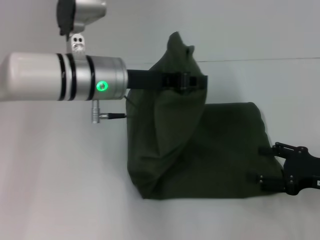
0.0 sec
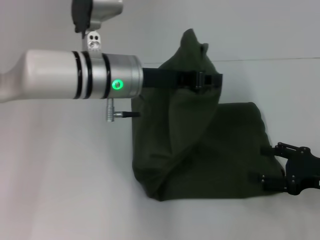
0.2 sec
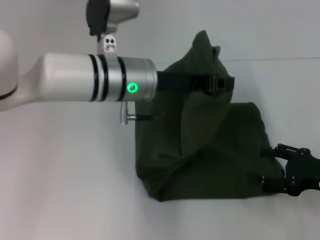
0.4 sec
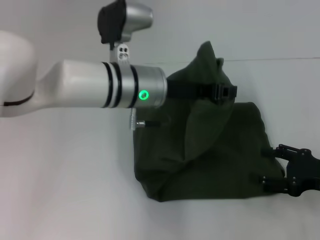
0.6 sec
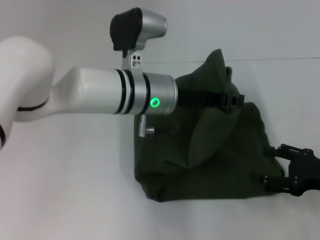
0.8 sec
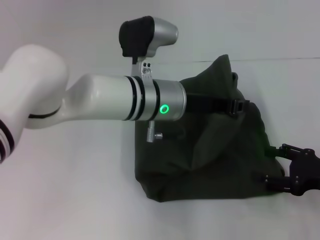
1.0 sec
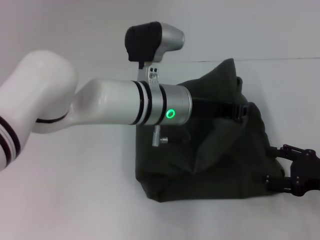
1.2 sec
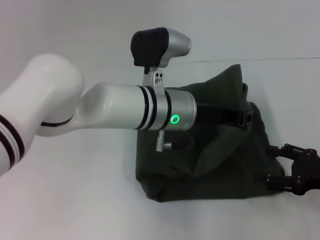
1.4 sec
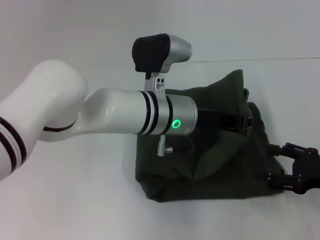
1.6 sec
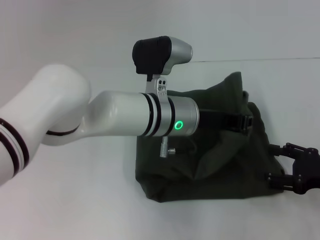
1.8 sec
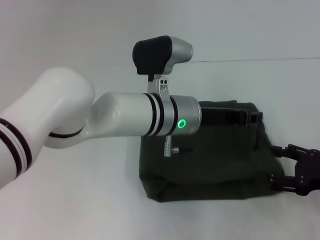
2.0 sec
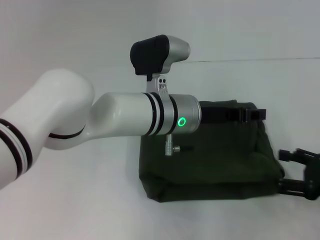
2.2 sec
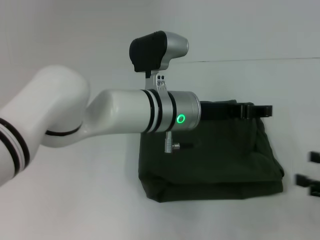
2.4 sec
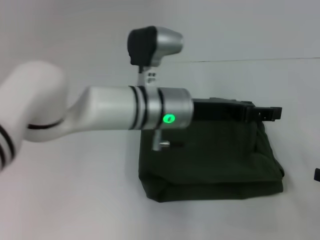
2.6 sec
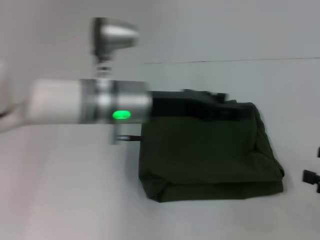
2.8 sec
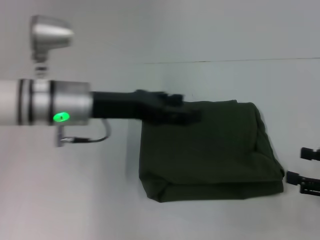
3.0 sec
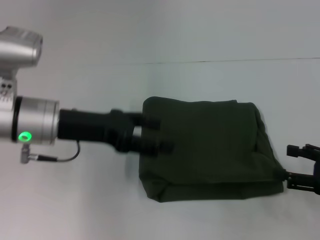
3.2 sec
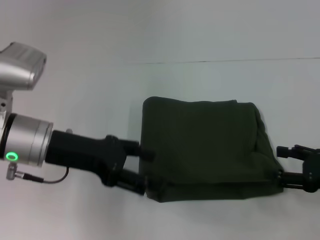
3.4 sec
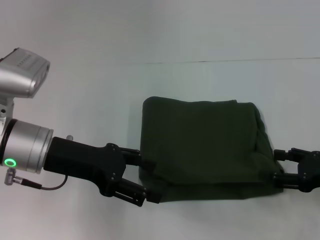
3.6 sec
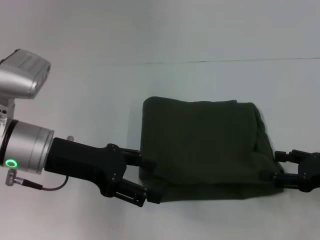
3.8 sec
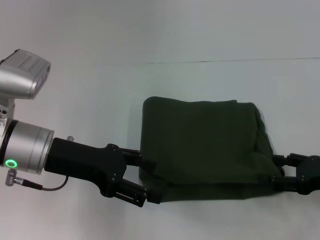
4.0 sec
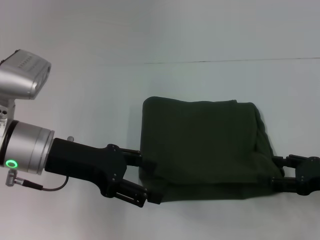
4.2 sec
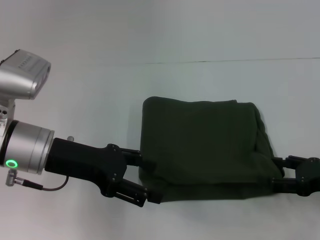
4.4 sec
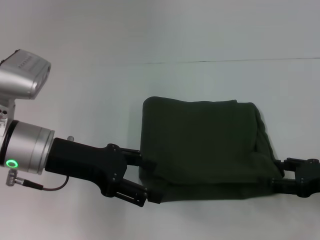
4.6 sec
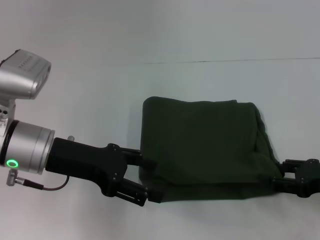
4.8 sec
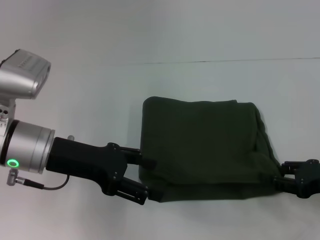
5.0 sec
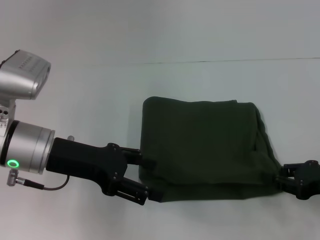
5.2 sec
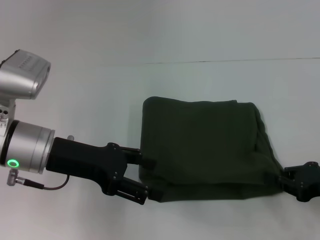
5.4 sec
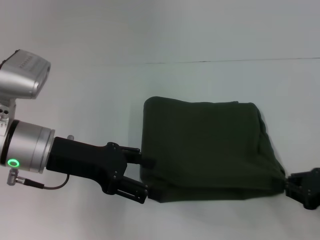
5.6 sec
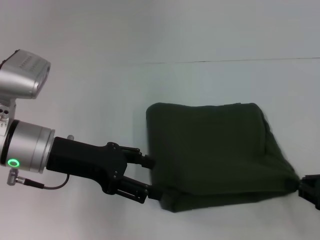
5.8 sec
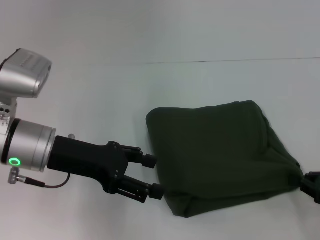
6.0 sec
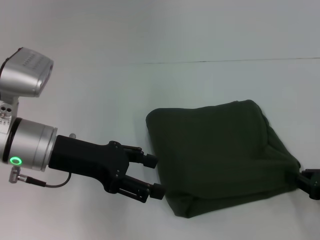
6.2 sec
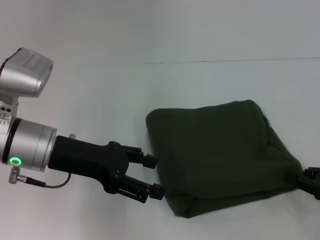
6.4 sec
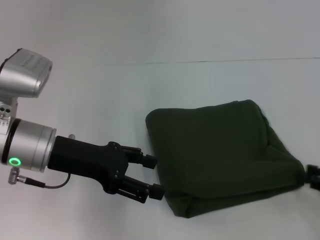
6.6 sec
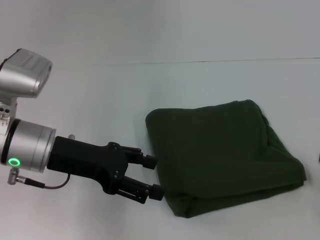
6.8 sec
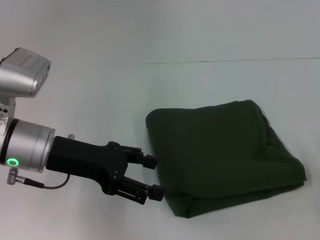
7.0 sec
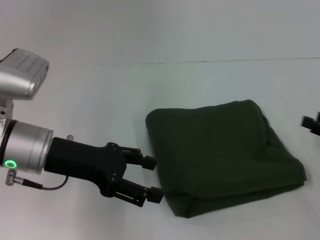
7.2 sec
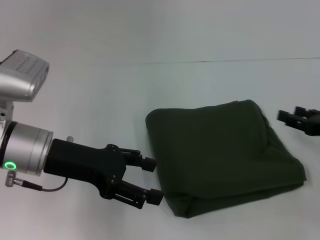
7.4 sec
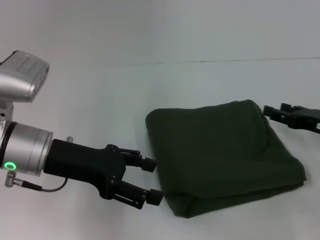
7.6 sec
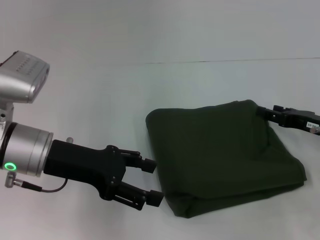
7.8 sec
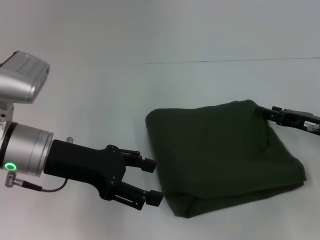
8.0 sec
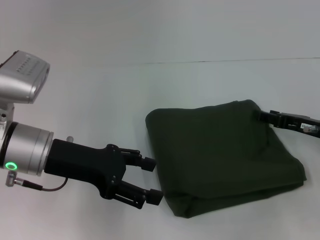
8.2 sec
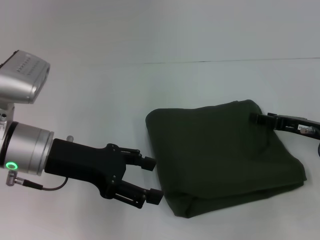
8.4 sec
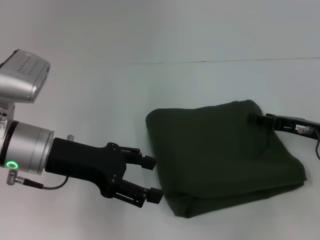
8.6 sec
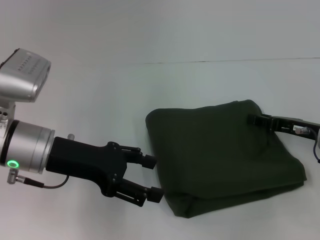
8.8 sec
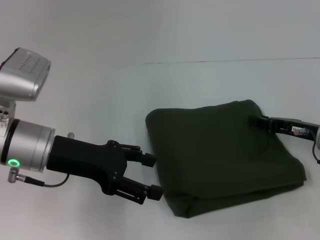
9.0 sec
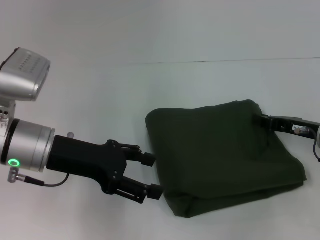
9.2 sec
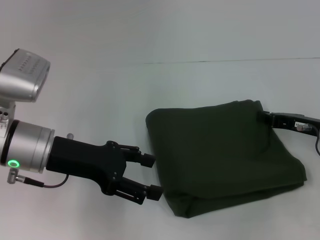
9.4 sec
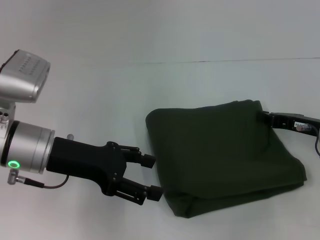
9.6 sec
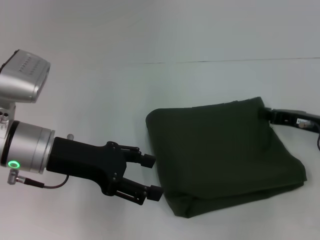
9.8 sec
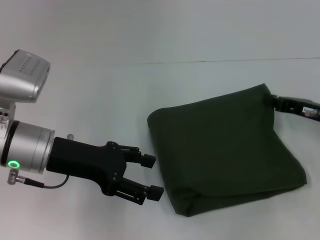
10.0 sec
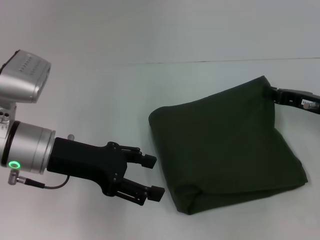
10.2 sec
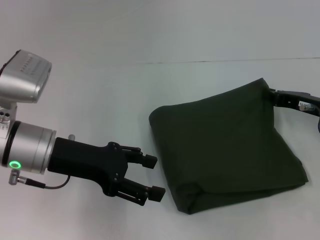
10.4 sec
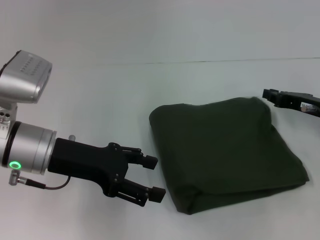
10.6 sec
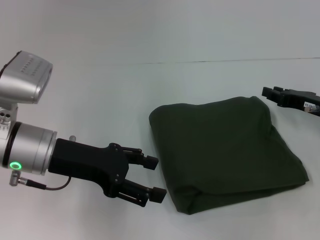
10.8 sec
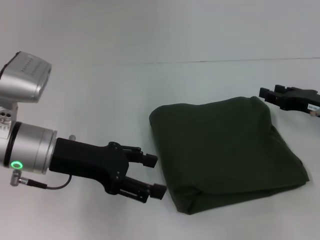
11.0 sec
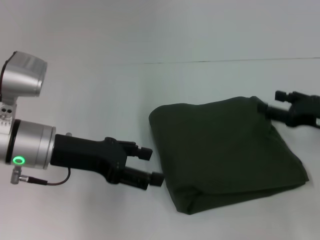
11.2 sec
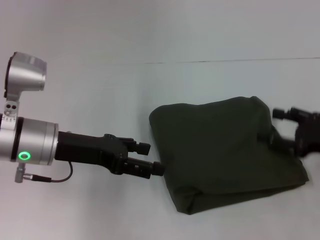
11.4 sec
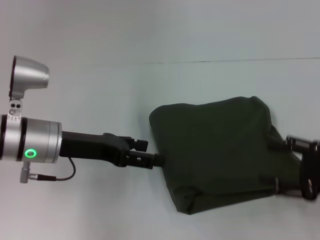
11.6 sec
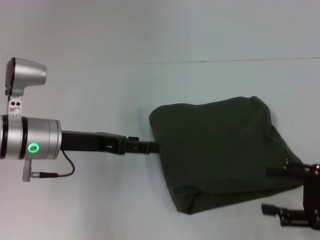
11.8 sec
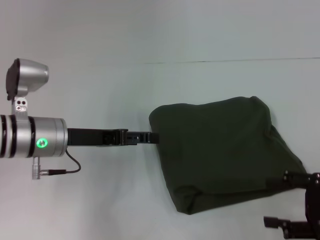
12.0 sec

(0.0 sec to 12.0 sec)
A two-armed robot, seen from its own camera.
Step, 0.0 sec - 2.0 sec: Fold the clothes with your left hand.
0.0 sec - 1.6 sec: The left gripper moves to the right, approximately 10 cm.
1.6 sec - 3.0 sec: The left gripper travels to the left by about 15 cm, and opens up.
3.0 sec - 4.4 sec: The left gripper moves approximately 5 cm.
4.4 sec - 6.0 sec: The right gripper closes its fingers.
6.0 sec - 7.6 sec: The right gripper heads forward, covering some 10 cm, and opens its fingers.
7.6 sec - 9.0 sec: The grippers make only small movements.
9.0 sec - 10.4 sec: The right gripper closes.
10.4 sec - 12.0 sec: The right gripper shifts about 15 cm backward, and opens.

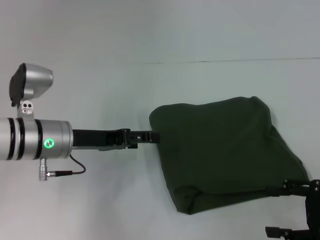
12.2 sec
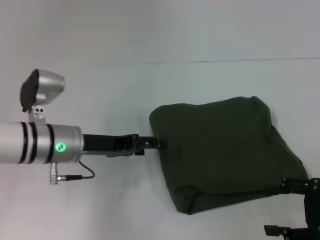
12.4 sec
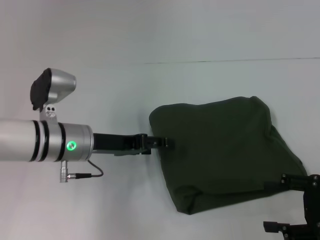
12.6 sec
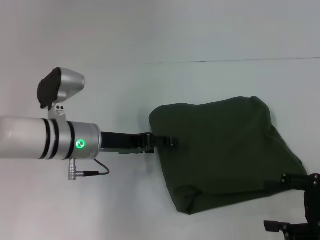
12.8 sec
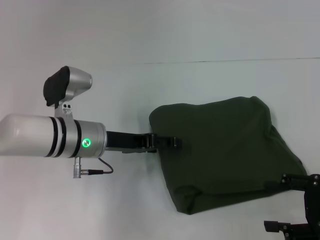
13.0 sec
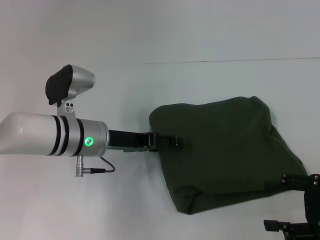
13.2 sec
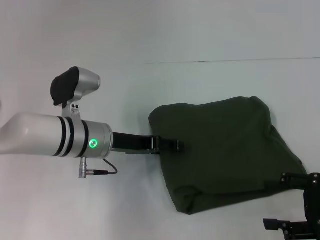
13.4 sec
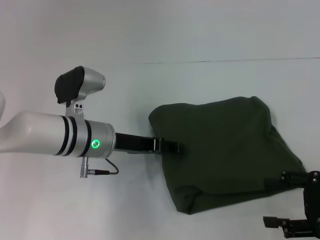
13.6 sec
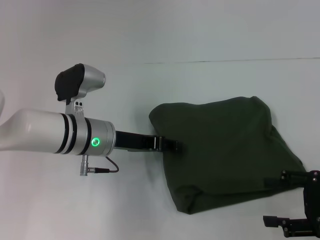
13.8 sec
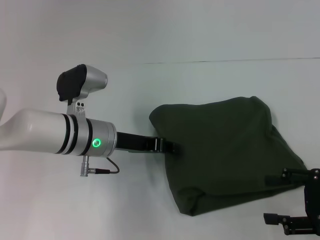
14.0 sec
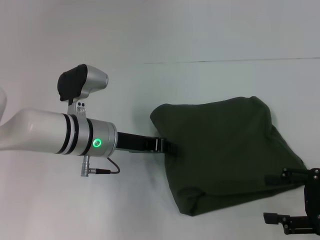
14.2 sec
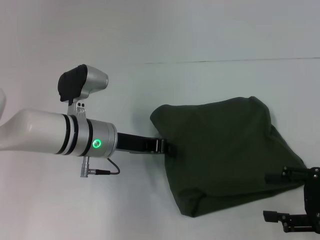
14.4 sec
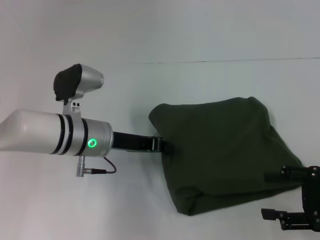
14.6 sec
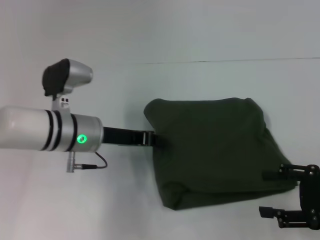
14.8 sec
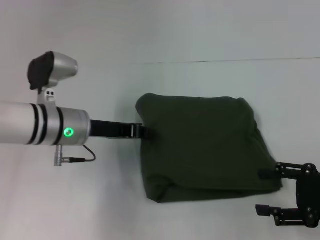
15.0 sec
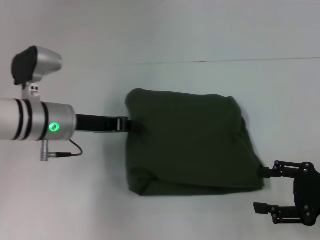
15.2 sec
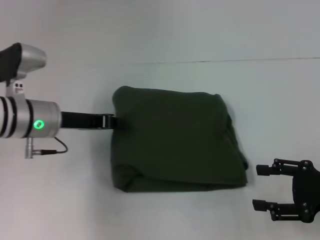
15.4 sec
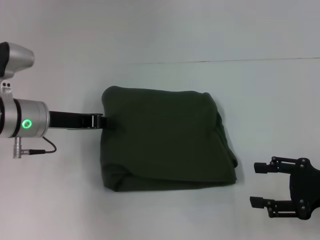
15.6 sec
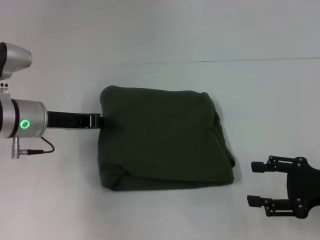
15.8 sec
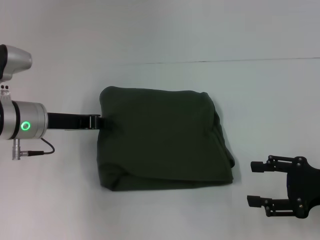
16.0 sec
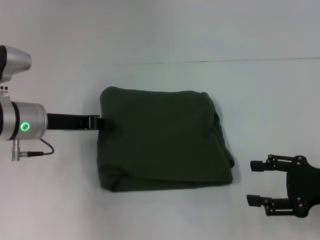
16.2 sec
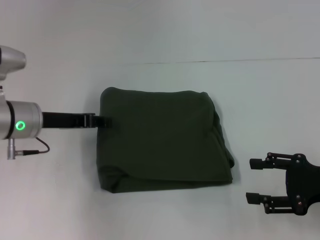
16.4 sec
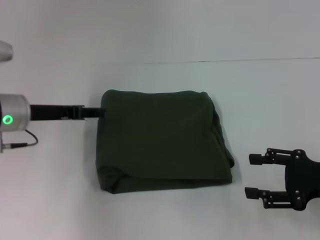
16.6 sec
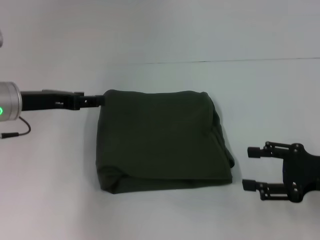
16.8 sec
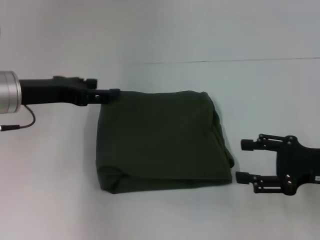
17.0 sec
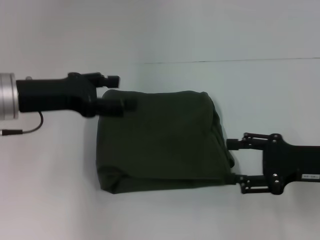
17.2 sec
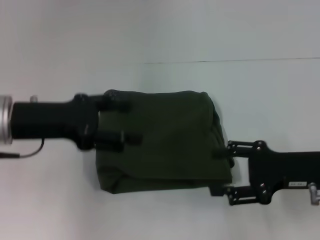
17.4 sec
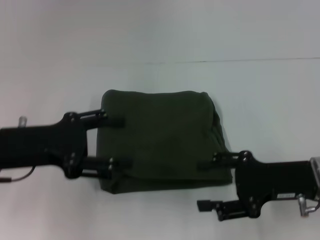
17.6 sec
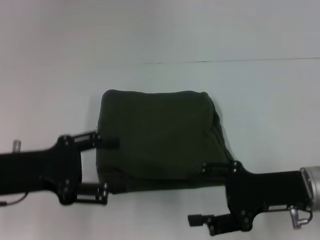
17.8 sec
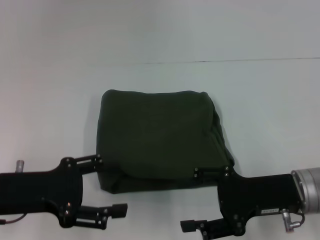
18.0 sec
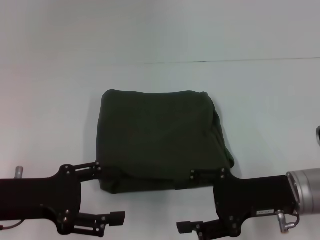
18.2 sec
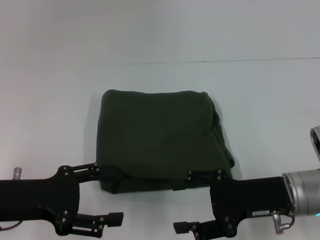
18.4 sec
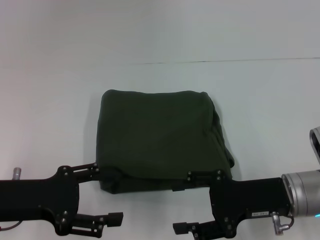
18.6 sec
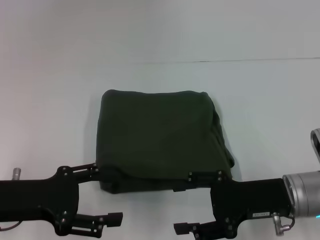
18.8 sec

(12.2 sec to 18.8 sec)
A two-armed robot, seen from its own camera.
12.2 sec - 13.8 sec: The left gripper goes roughly 5 cm to the right.
13.8 sec - 15.4 sec: The left gripper heads to the left, covering roughly 10 cm, and closes up.
15.4 sec - 17.2 sec: The left gripper travels upward by approximately 5 cm, and opens, while the right gripper ends up approximately 5 cm from where it was.
17.2 sec - 18.8 sec: The left gripper is displaced backward and downward by approximately 10 cm. Meanwhile the right gripper goes about 5 cm to the left.

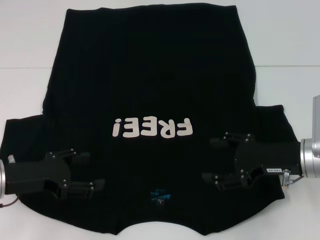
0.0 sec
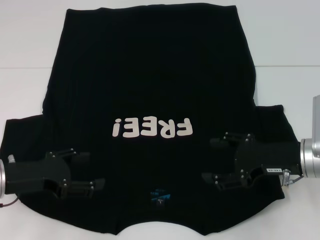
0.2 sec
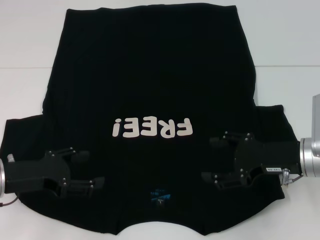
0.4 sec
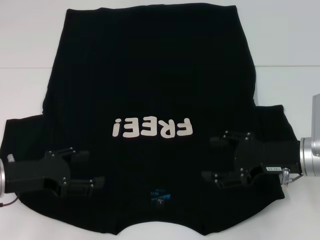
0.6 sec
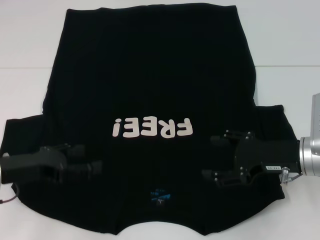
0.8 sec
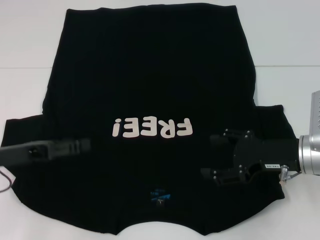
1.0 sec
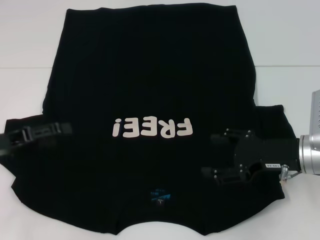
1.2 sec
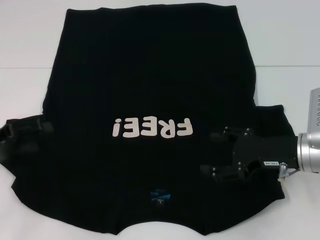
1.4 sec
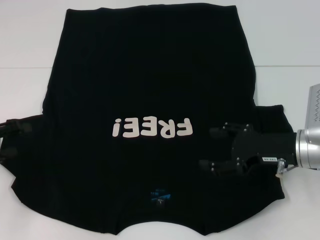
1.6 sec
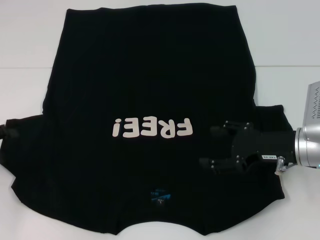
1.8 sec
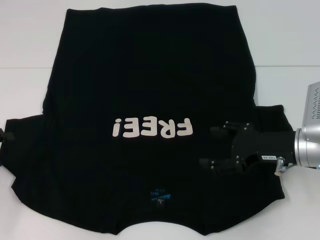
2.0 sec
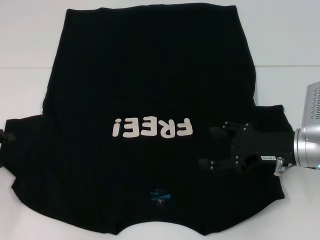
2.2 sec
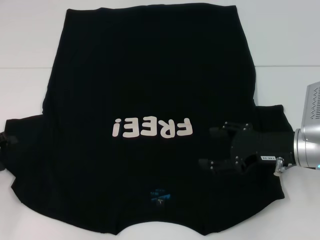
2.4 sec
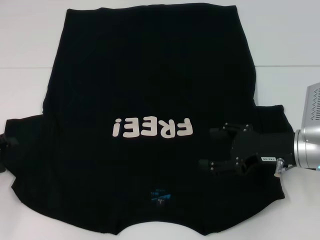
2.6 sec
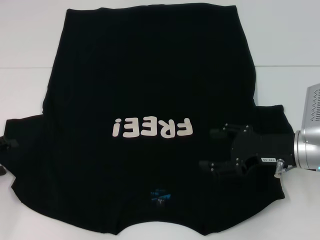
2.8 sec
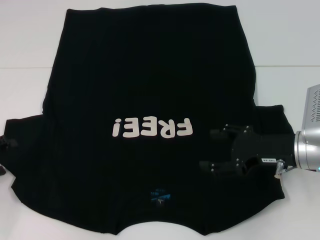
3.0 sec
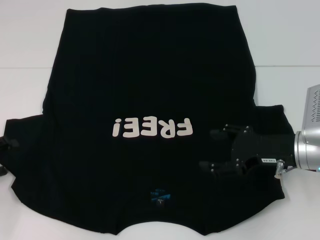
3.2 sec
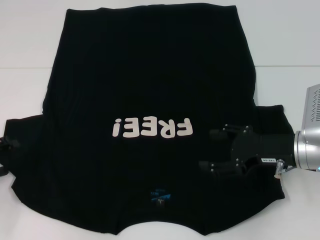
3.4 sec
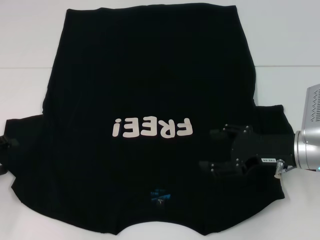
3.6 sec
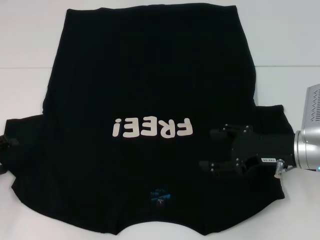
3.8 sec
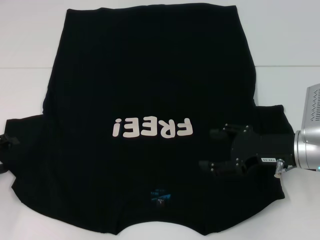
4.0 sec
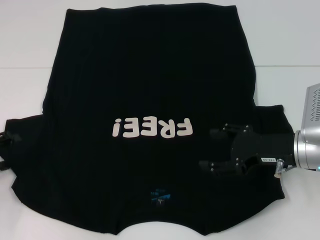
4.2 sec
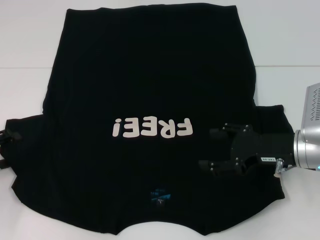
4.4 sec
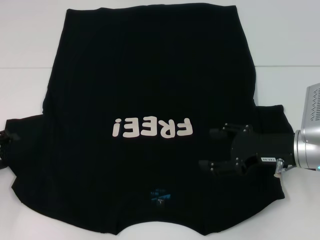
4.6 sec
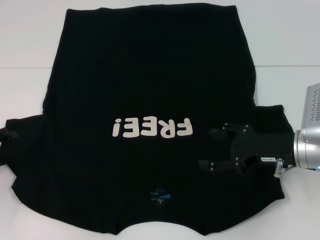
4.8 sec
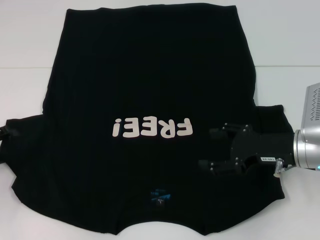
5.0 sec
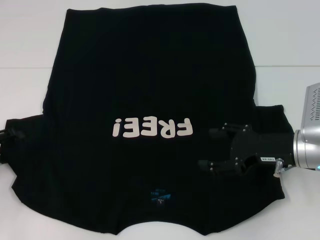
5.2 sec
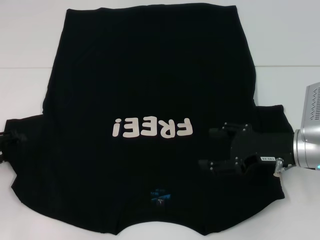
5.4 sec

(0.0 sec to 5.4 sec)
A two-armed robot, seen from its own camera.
0.0 sec - 1.4 sec: The left gripper moves to the left, approximately 5 cm.
1.4 sec - 2.8 sec: The left gripper shifts by some 5 cm.
2.8 sec - 4.0 sec: Neither gripper changes place.
4.0 sec - 5.4 sec: The grippers stay close to where they were, moving slightly.
